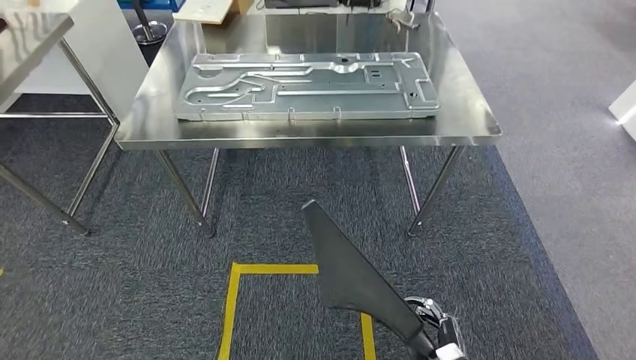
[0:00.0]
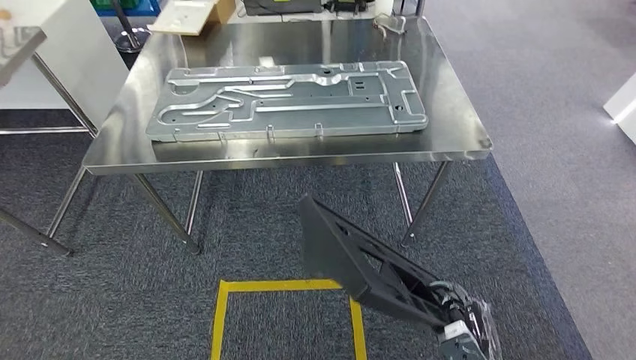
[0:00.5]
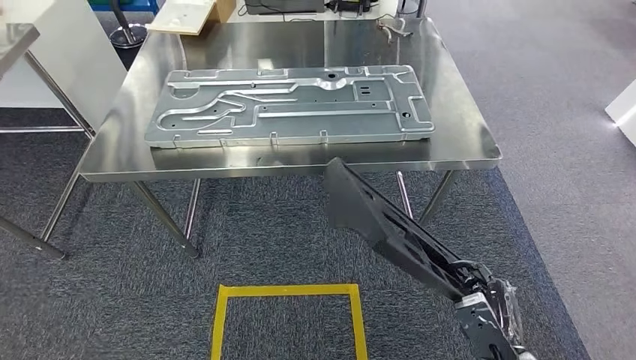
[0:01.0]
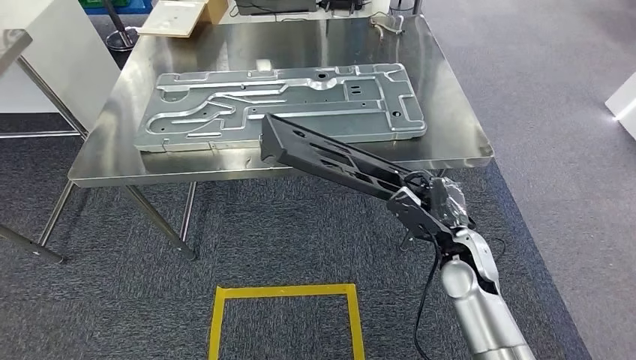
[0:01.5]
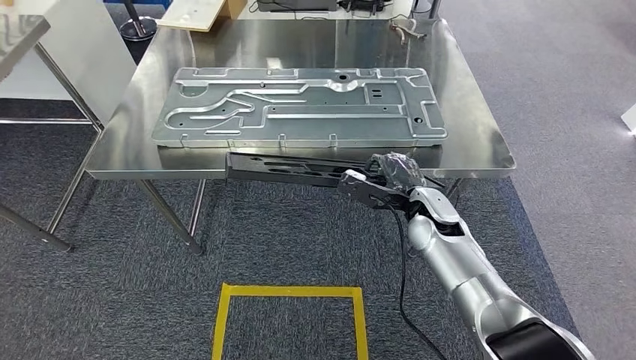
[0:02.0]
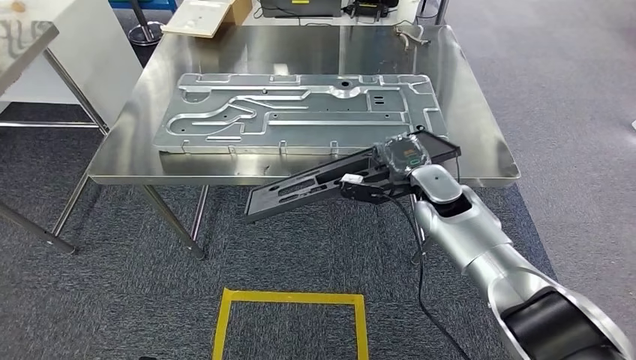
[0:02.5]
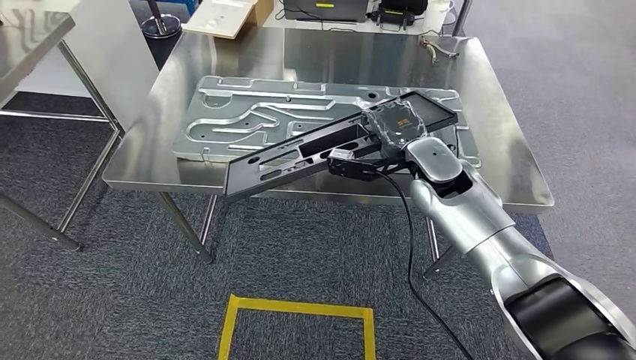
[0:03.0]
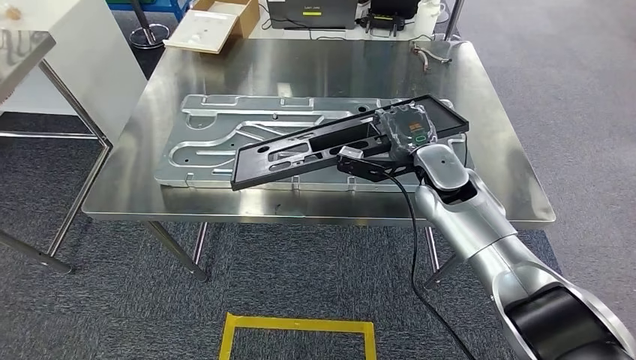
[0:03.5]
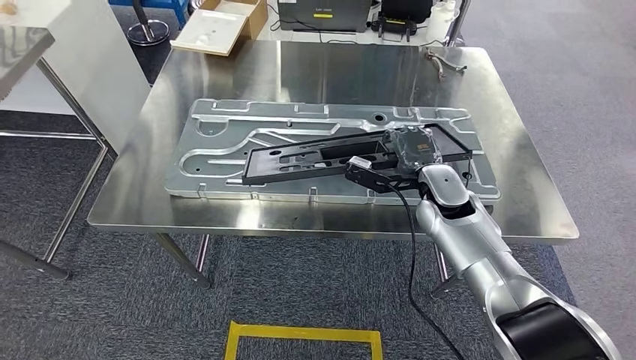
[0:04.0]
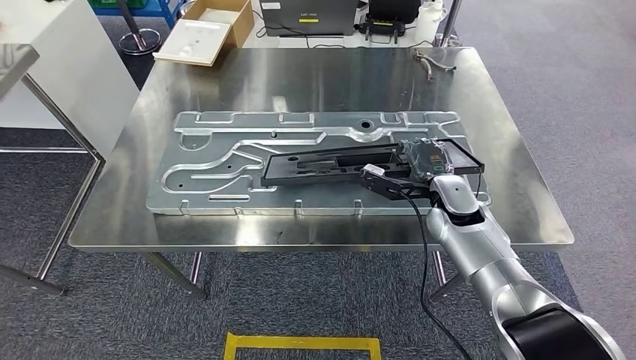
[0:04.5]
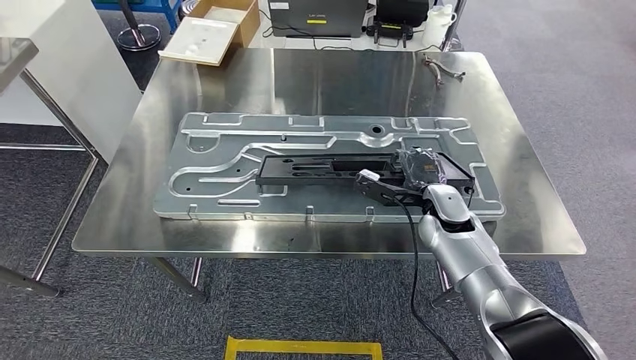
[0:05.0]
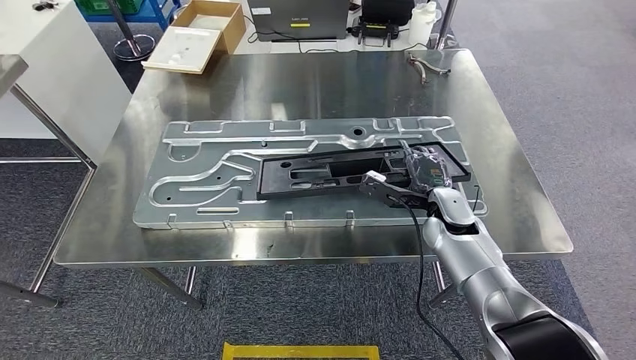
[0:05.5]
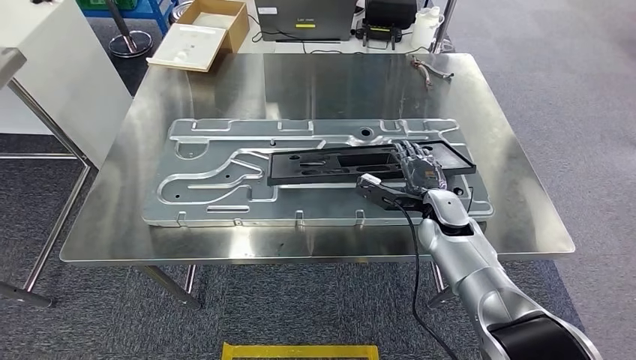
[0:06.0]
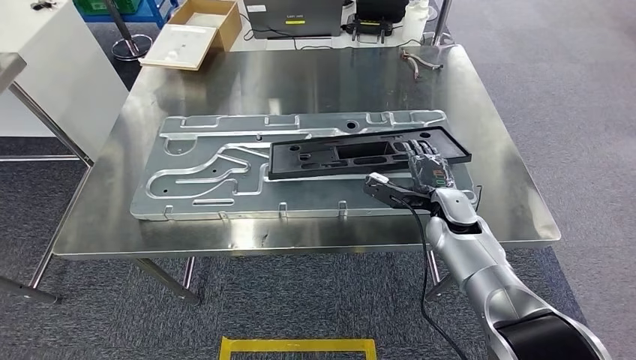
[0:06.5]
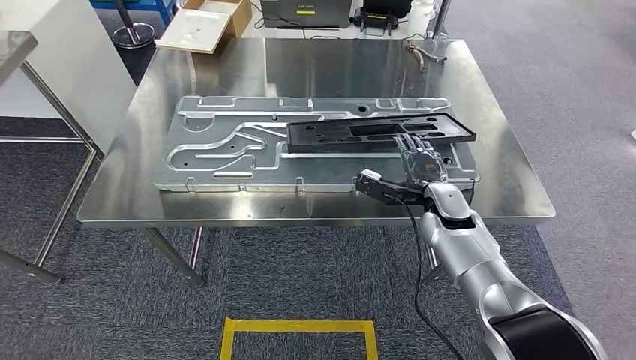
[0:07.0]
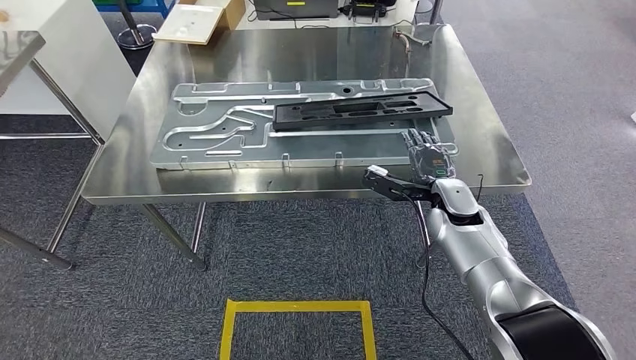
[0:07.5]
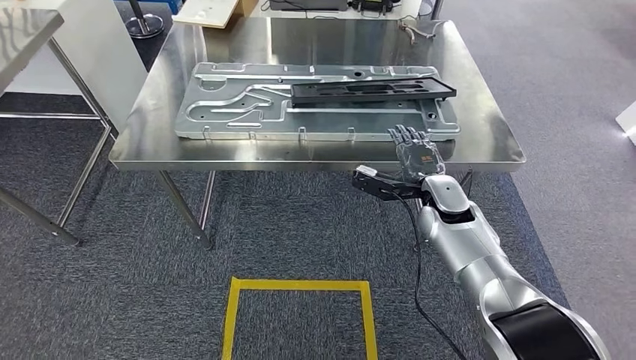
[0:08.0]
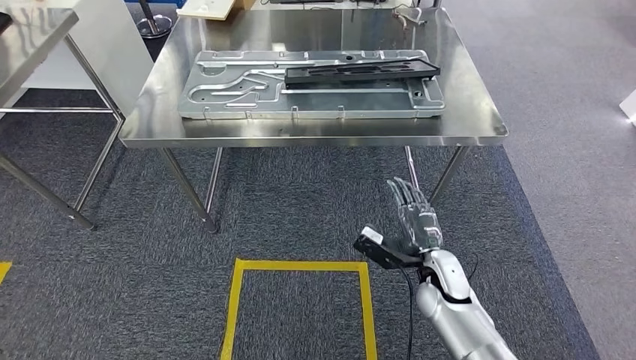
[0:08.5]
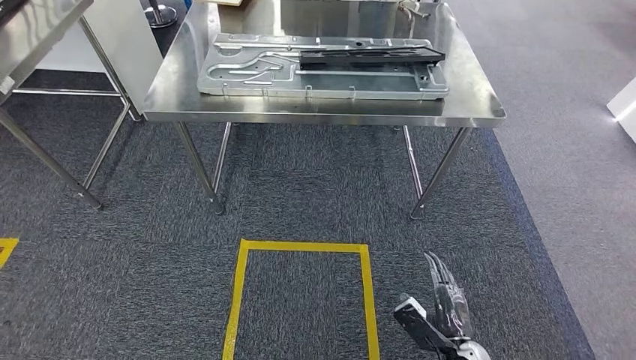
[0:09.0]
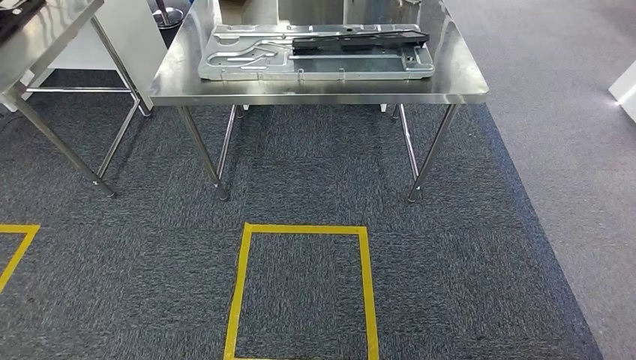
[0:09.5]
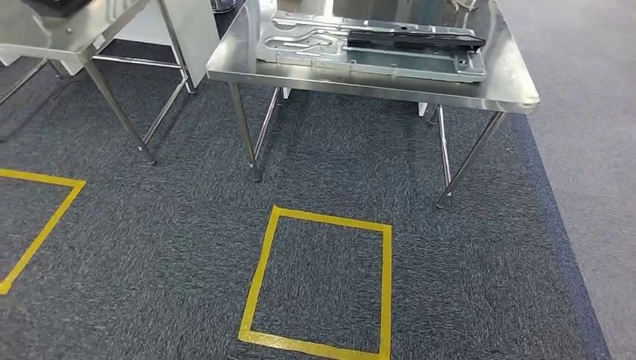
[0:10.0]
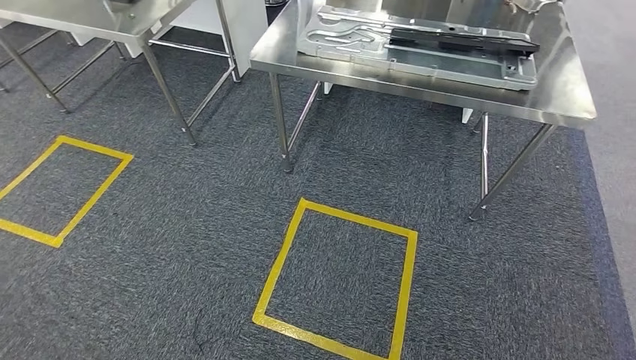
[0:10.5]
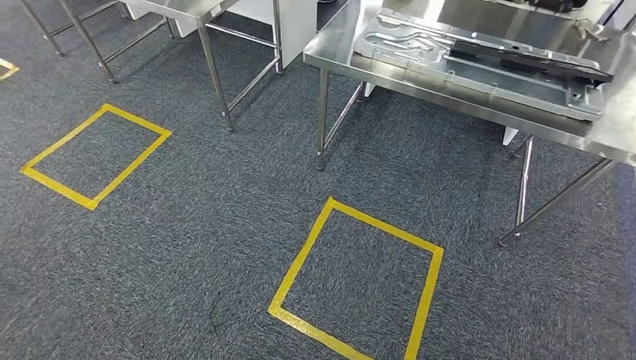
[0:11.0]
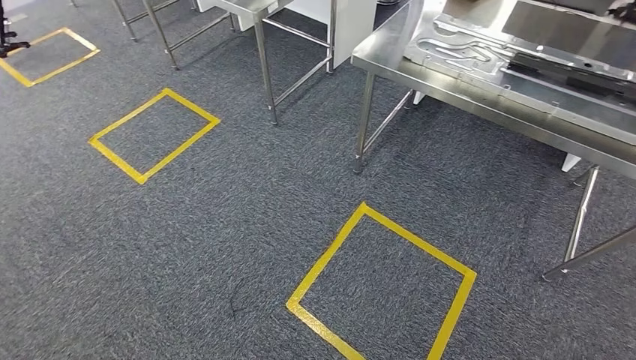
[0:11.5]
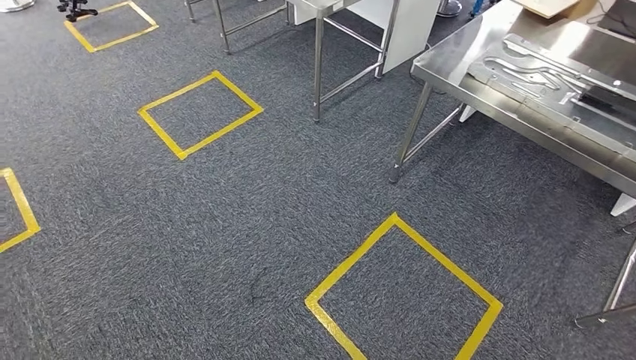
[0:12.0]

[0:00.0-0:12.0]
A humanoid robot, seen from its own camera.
Step, 0:00.0 to 0:07.0: Insert the large material into the corresponding slot on the workbench.

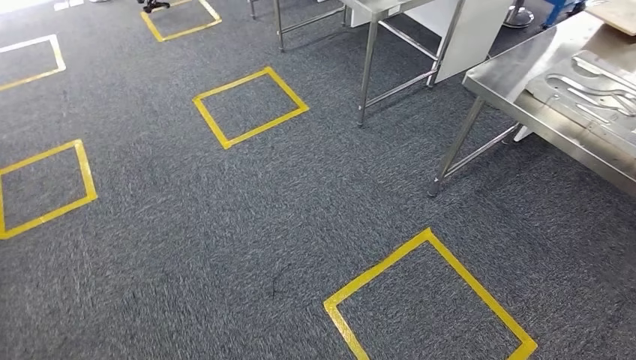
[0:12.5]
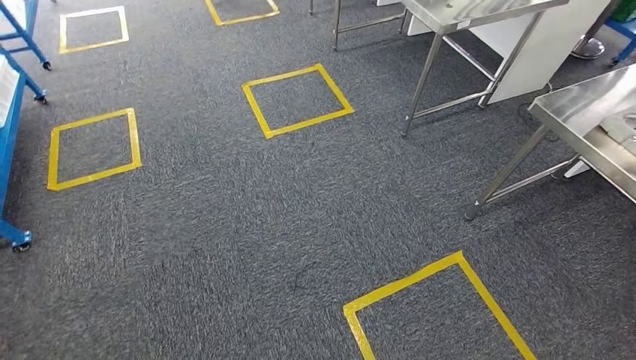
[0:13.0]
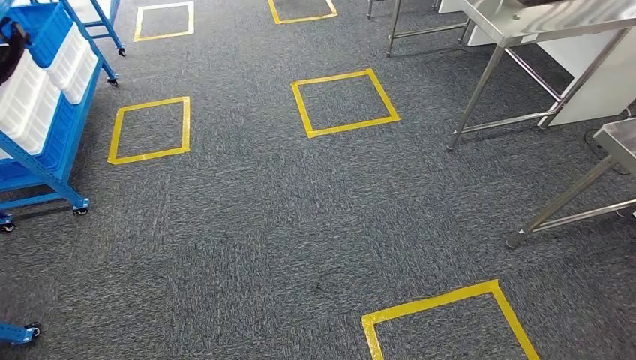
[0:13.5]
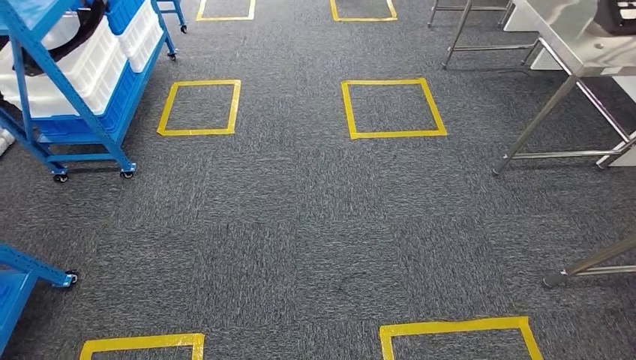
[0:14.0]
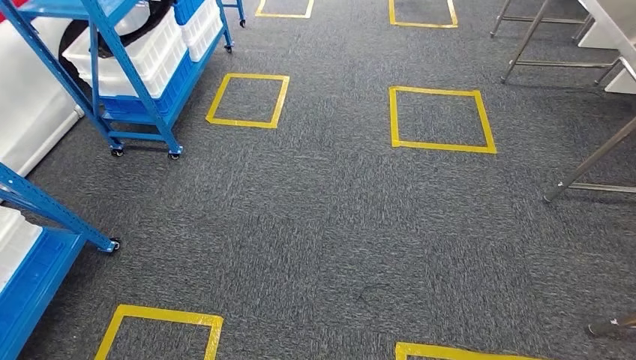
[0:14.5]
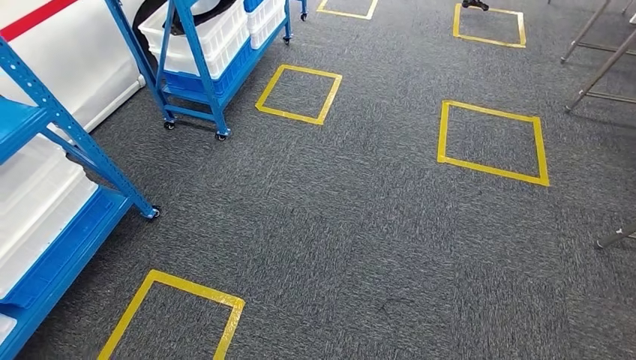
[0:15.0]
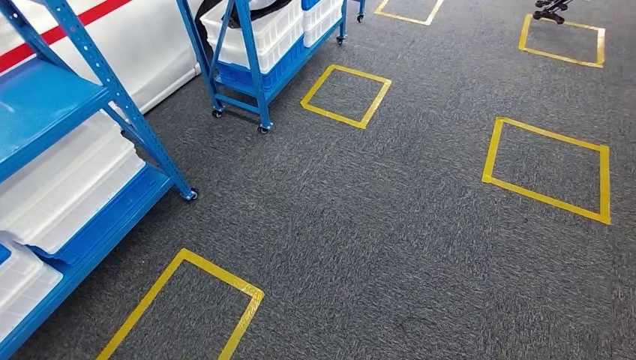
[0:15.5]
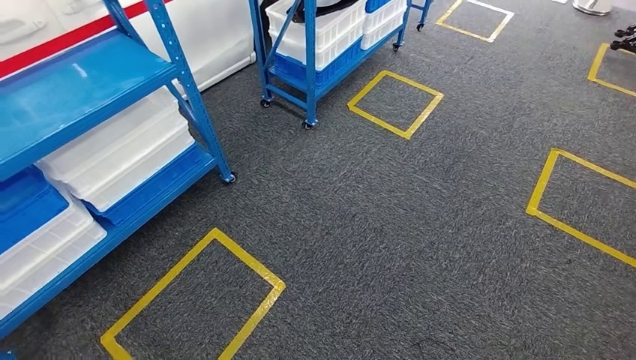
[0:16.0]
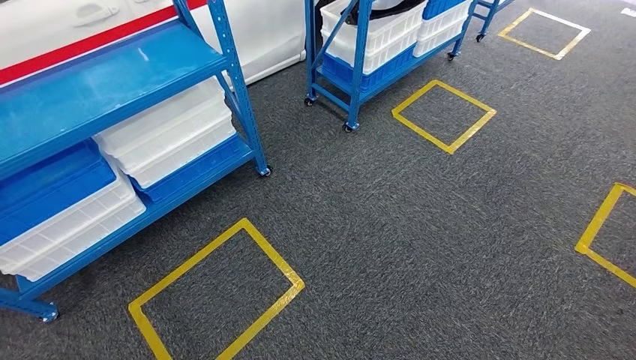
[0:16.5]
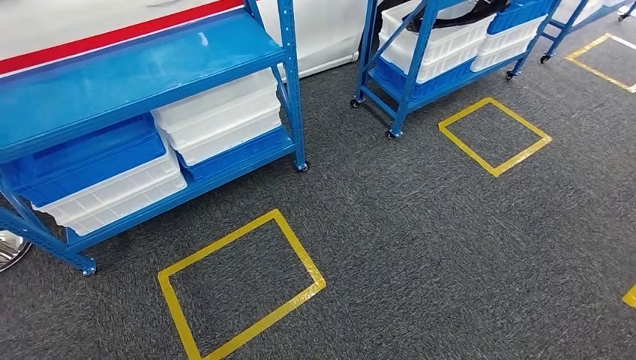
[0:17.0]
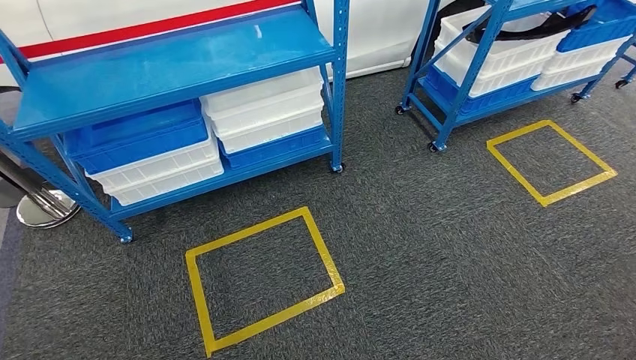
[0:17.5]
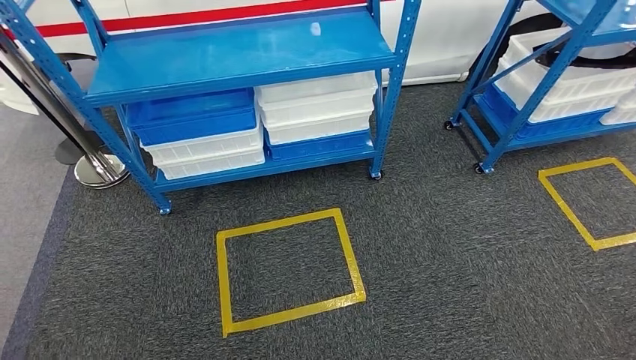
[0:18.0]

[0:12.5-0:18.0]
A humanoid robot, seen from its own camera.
Step, 0:12.5 to 0:18.0: Move to the initial position of the shelf.
